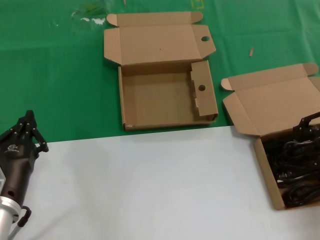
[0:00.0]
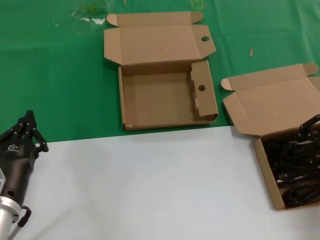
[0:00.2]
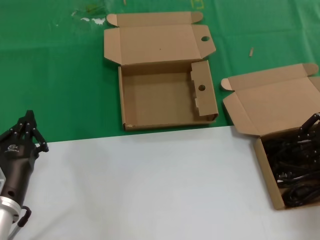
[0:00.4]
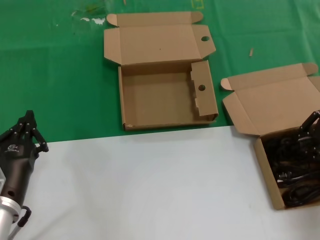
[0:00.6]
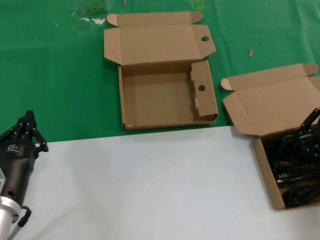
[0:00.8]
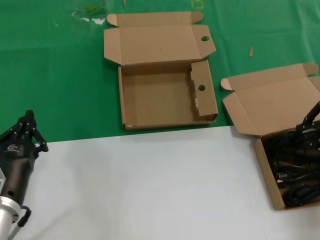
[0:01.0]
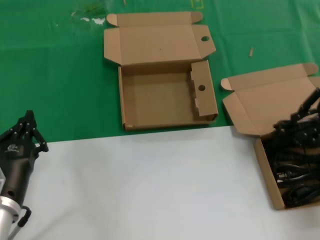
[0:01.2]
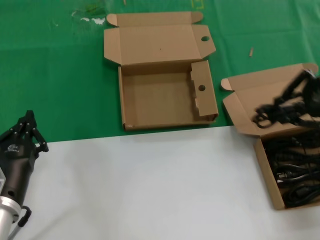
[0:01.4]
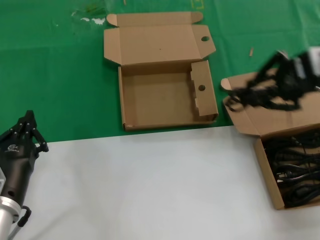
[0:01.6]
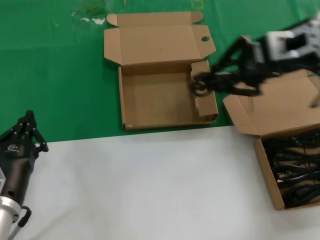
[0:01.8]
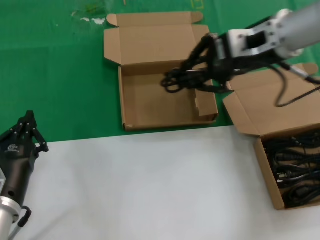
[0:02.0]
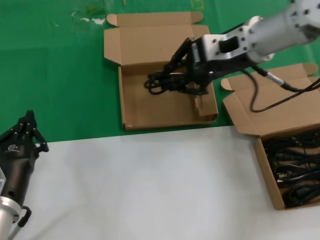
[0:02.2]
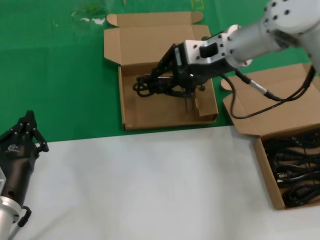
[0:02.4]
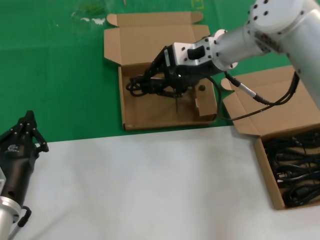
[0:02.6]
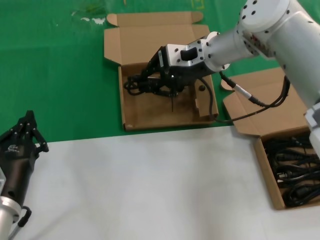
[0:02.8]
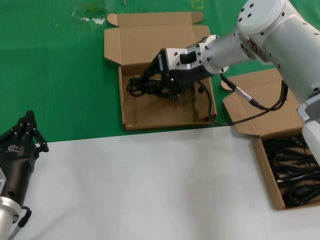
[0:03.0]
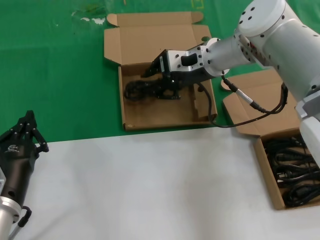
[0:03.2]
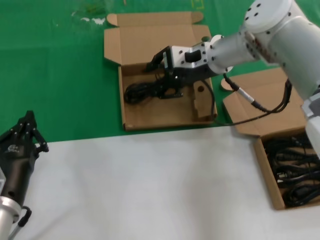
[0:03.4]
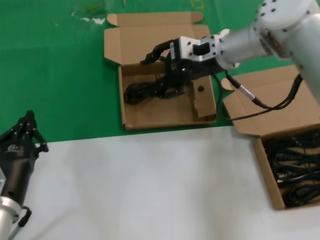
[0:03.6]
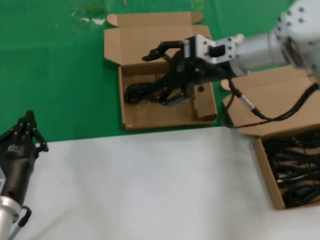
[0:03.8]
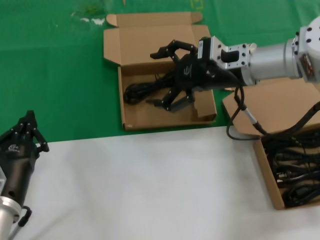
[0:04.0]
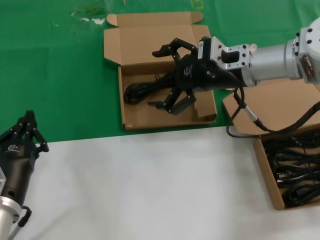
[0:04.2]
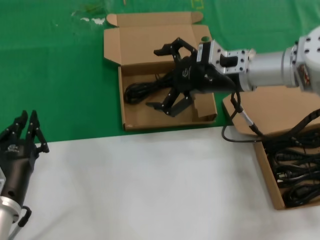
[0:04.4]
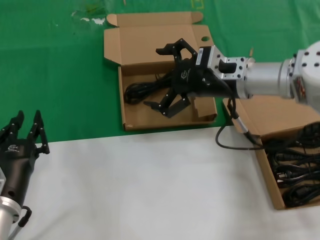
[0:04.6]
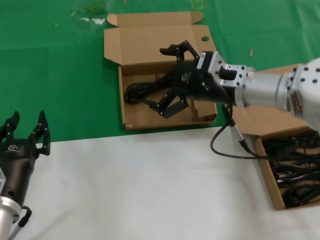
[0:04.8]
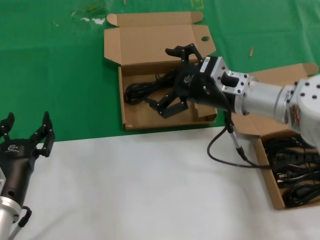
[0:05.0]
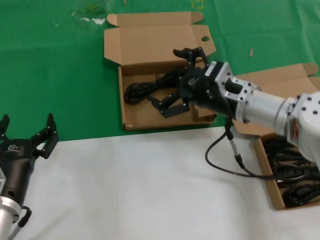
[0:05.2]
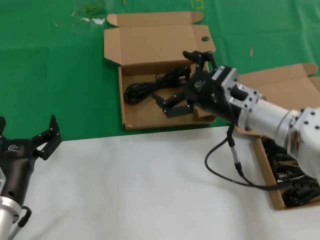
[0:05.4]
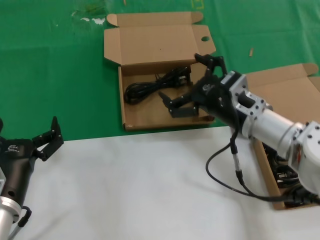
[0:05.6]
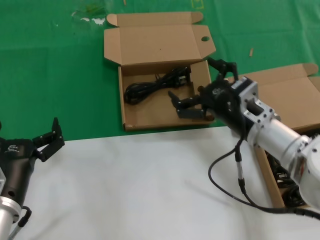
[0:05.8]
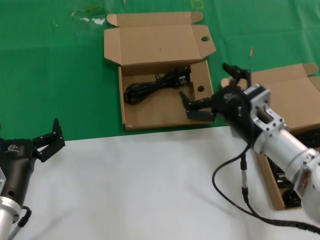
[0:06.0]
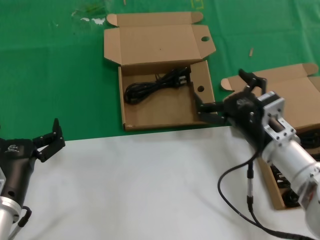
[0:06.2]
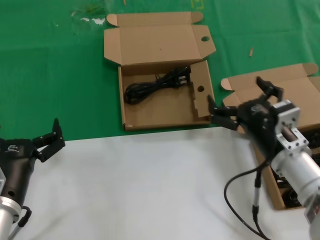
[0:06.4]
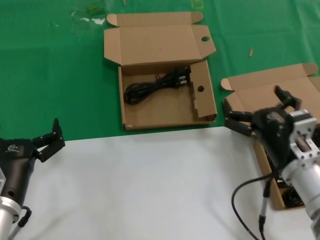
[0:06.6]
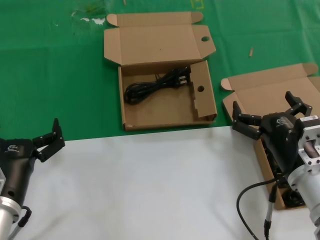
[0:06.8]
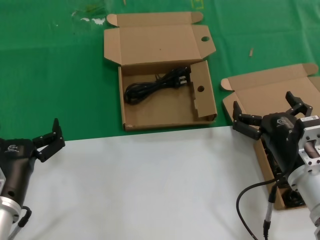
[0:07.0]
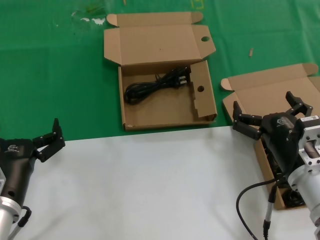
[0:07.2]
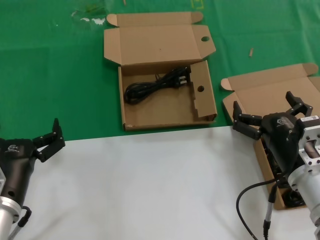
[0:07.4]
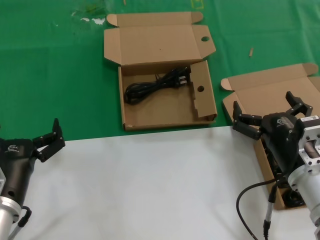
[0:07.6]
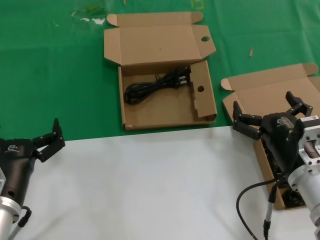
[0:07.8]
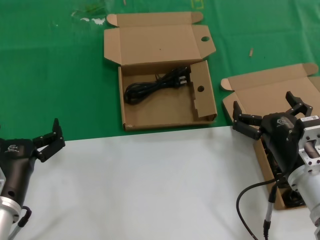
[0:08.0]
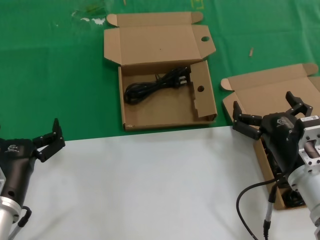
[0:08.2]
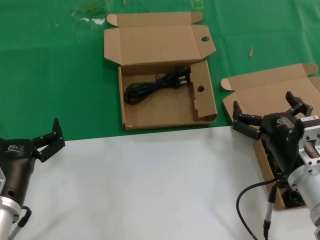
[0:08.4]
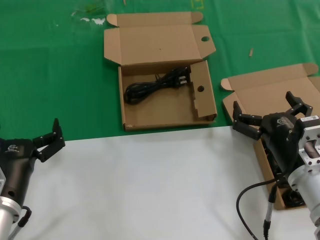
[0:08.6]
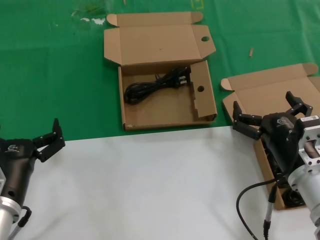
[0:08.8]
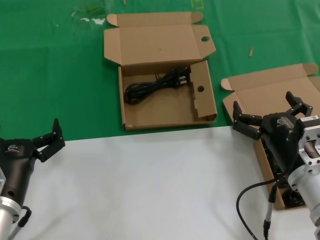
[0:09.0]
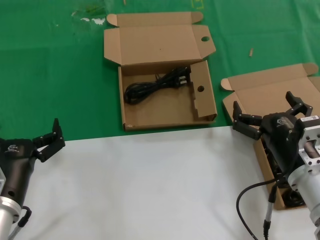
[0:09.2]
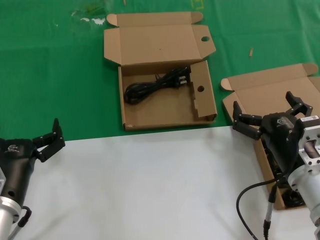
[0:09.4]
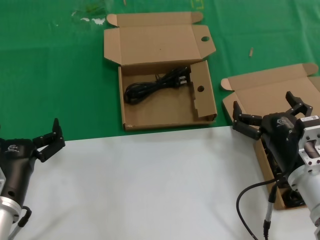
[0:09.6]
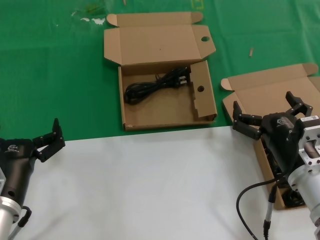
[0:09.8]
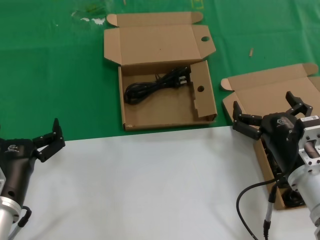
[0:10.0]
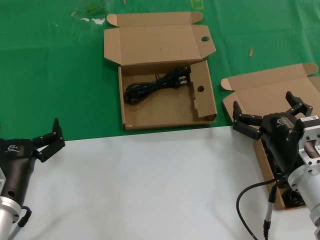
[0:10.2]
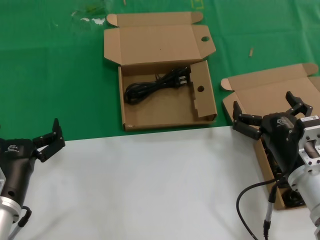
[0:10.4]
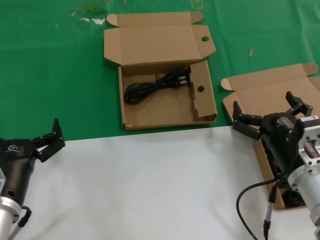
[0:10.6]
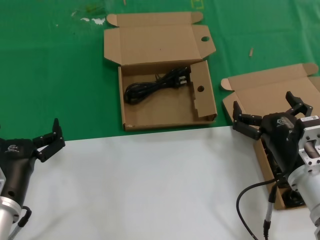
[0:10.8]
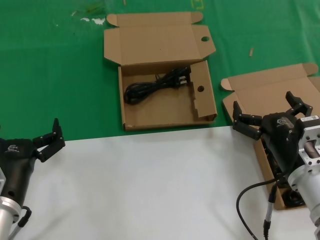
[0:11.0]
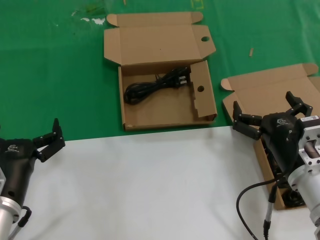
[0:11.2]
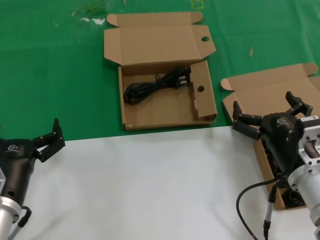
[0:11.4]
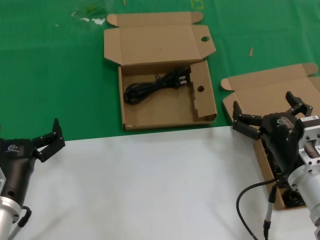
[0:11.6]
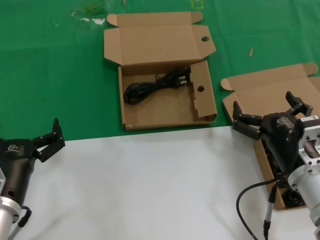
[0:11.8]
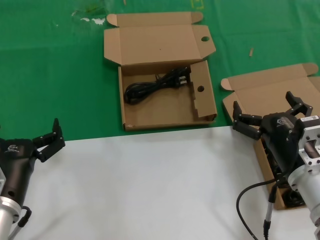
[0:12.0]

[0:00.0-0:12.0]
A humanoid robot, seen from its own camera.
Task of the whole recording: take the parts from the box containing them and put them into an empty box.
Step, 0:00.6 to 0:03.6: Place the data cable in the another box.
0:00.0 to 0:01.6: The right hand moves upward and to the left, roughly 15 cm.
0:01.6 to 0:03.0: The right hand is displaced to the left, forward and downward by roughly 25 cm.
0:03.0 to 0:04.4: The right hand travels to the right and backward by about 10 cm.
0:04.4 to 0:06.0: The right hand heads downward and backward, covering some 15 cm.
0:06.0 to 0:07.6: The right hand heads backward, covering about 10 cm.
0:07.6 to 0:12.0: Both hands stay put.

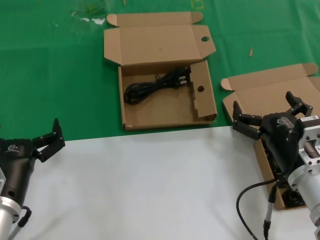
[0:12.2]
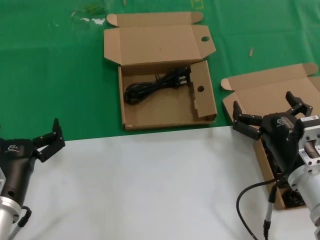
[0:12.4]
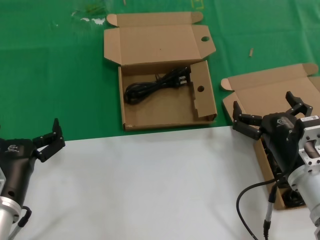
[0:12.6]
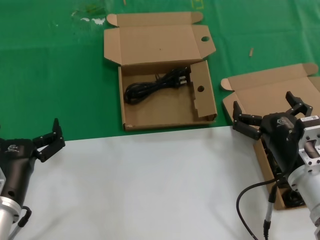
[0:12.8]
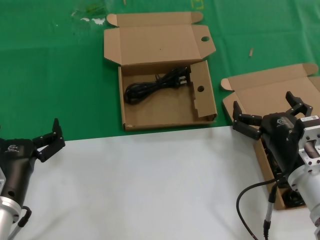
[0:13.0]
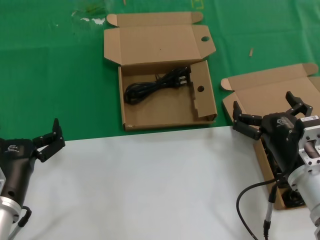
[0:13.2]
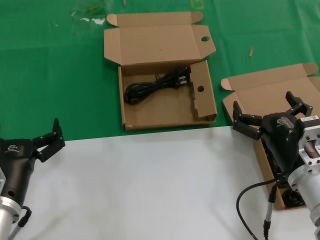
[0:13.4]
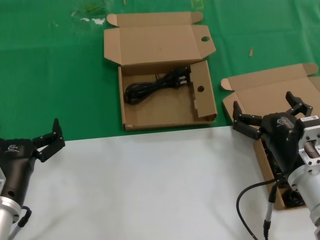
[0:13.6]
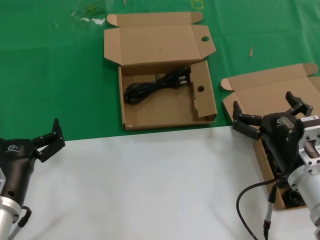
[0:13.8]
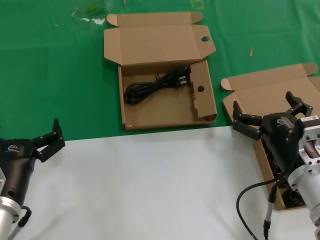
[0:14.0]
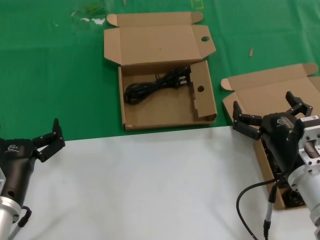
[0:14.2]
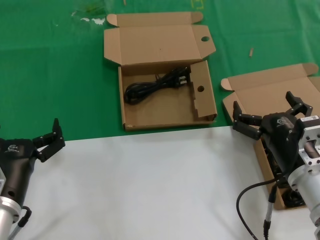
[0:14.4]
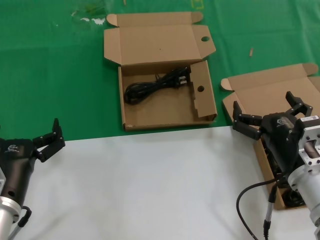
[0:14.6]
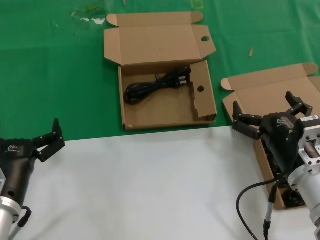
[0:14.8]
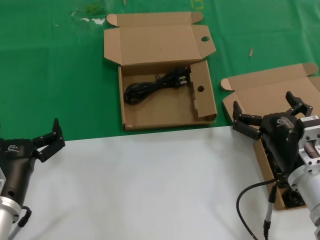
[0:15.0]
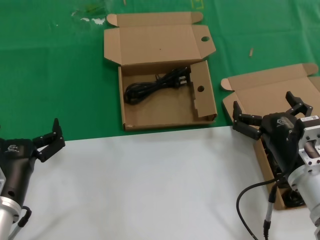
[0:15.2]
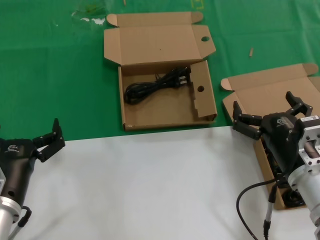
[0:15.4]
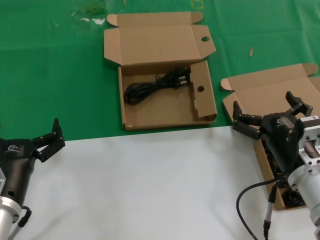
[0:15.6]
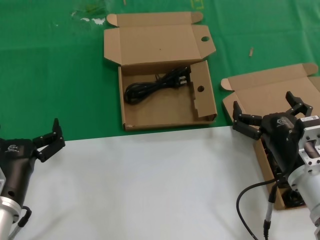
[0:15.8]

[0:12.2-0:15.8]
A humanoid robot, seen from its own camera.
Task of the whole recording: take the parts from the box containing them and put them into an empty box.
0:12.2 to 0:15.8: Neither hand changes place.
